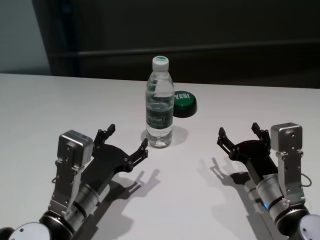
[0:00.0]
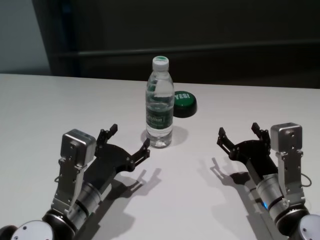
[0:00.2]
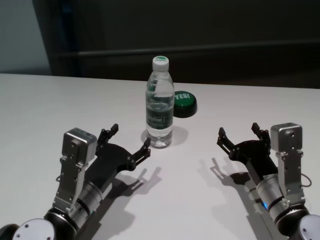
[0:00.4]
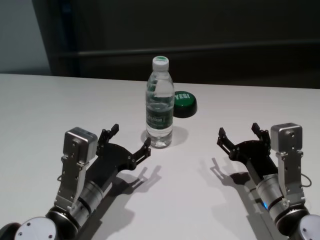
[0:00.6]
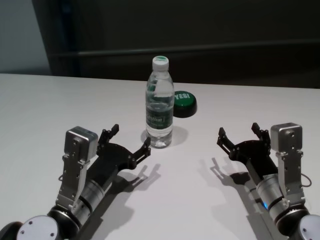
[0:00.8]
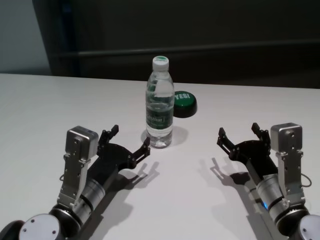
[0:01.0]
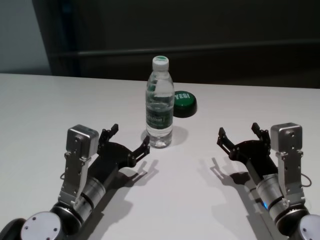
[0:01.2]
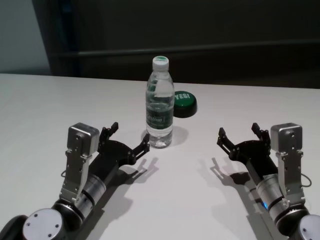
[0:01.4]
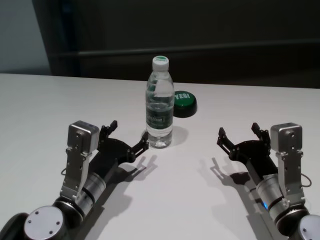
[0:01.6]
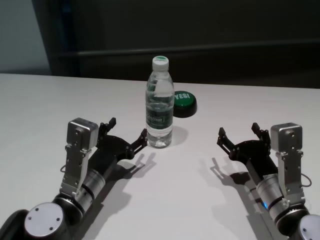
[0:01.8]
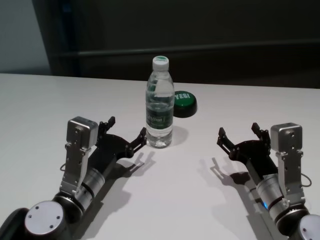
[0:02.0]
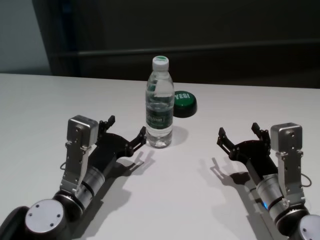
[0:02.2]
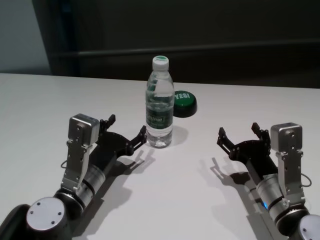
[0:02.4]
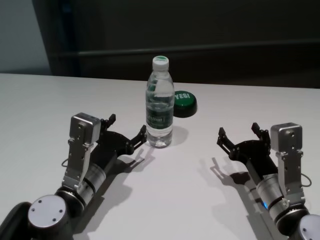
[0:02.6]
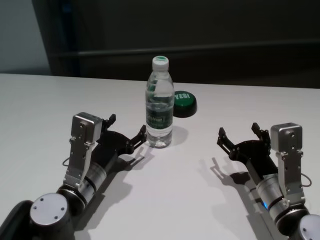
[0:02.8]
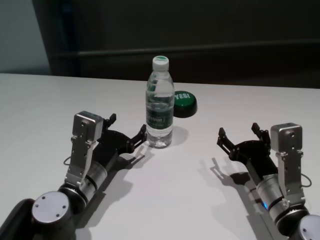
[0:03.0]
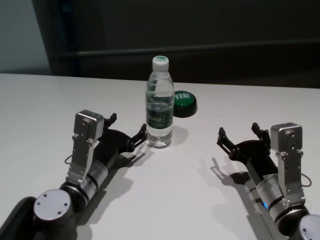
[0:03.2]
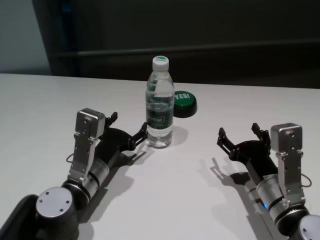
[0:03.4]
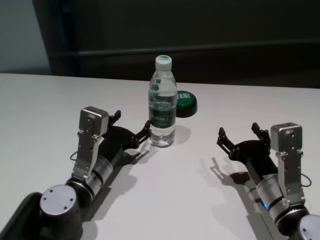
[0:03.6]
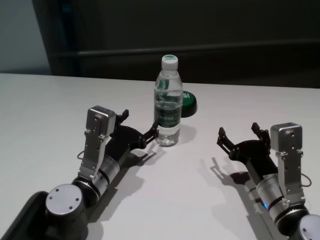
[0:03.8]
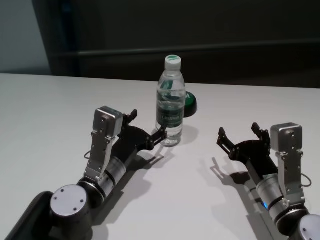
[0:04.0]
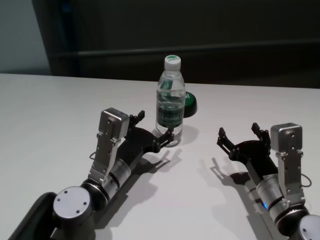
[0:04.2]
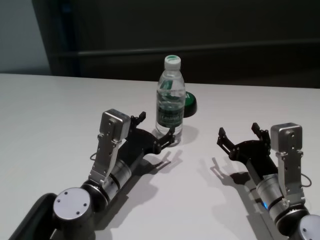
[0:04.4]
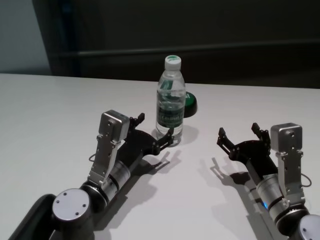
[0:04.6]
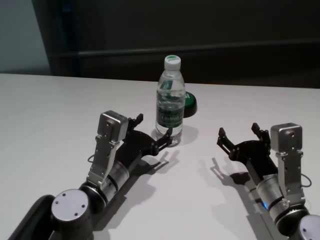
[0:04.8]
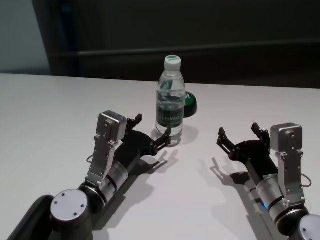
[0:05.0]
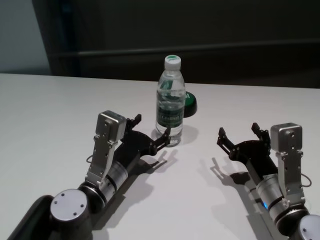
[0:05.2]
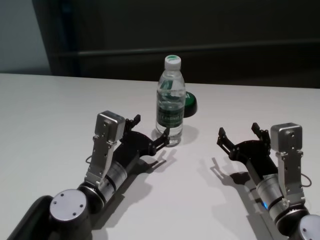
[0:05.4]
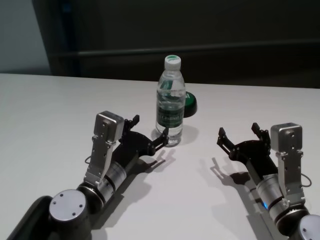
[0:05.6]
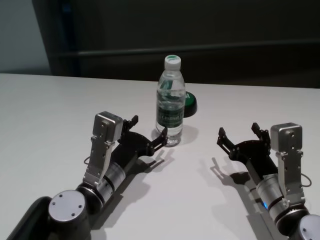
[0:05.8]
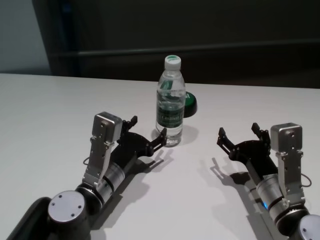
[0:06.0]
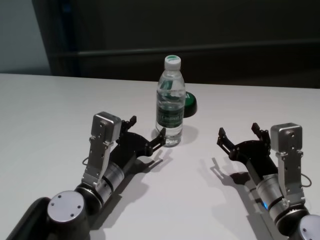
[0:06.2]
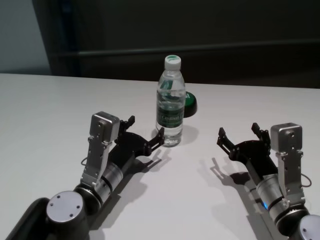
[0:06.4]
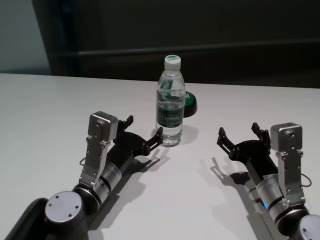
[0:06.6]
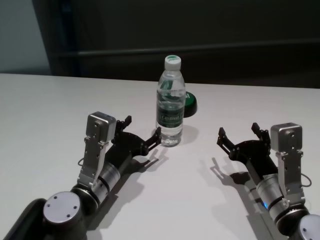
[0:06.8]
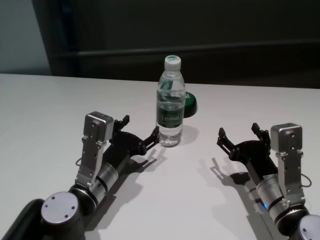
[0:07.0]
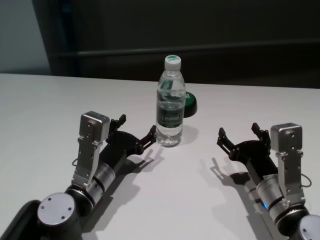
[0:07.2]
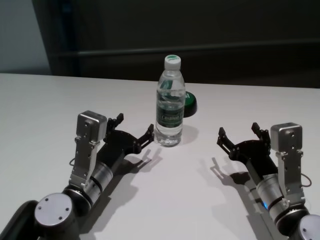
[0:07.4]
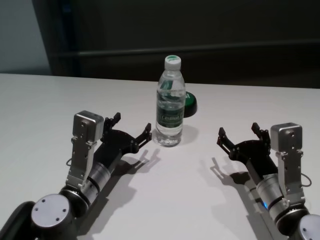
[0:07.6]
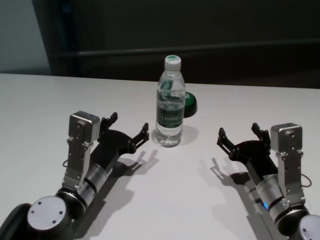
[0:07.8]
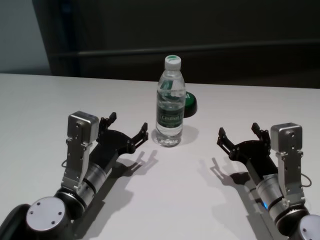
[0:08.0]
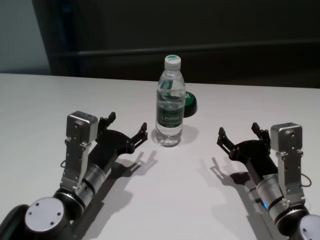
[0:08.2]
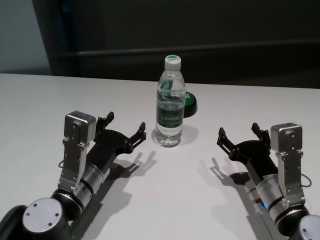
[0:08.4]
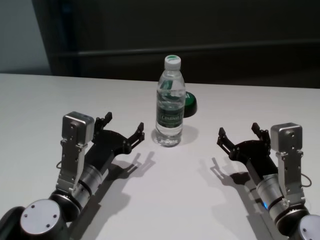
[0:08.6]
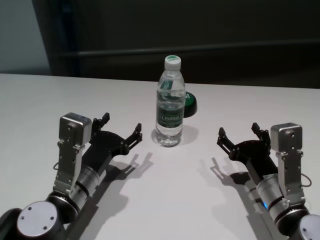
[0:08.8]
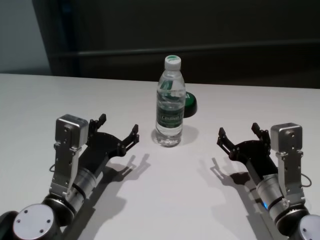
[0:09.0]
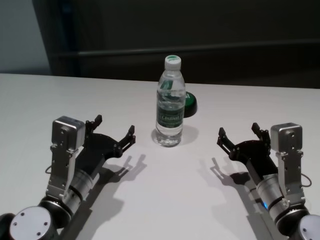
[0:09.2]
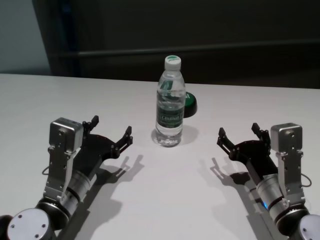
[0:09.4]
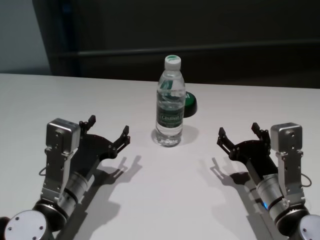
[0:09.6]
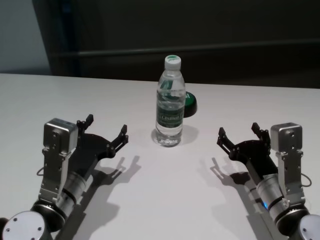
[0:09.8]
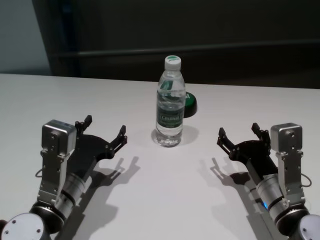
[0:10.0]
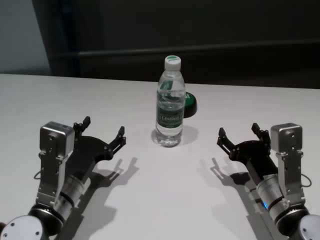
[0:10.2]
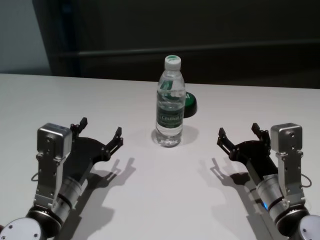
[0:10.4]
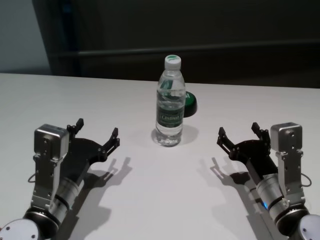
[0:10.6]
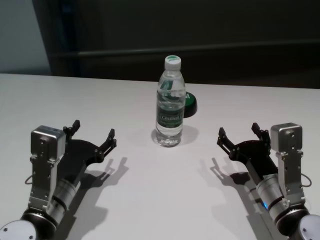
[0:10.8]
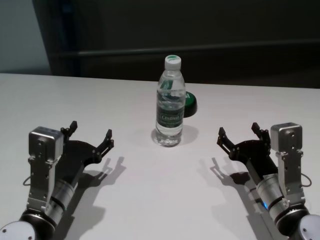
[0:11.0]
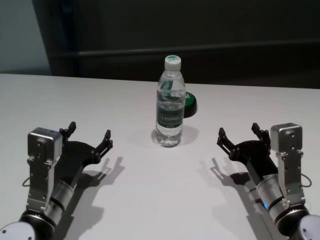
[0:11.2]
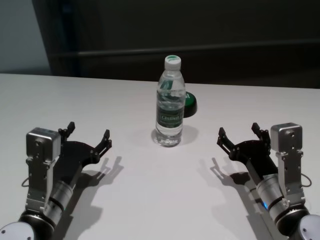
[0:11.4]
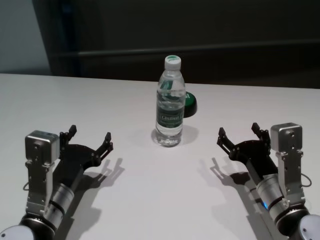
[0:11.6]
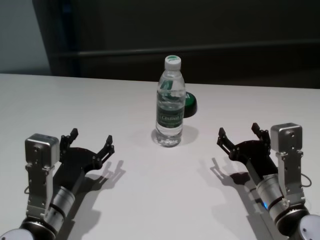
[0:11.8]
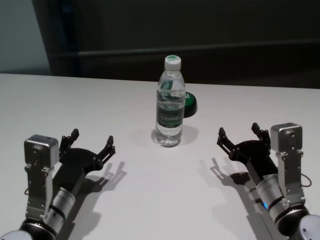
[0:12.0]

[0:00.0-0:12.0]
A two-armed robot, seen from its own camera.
Task of the whole recording: return to a safe position after touching an obstacle with your arm on the white table.
Step, 0:00.0 to 0:07.6: Touch the bottle with left gripper.

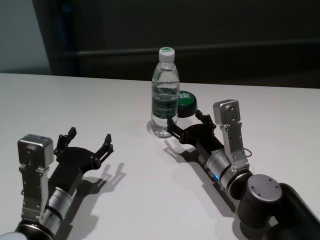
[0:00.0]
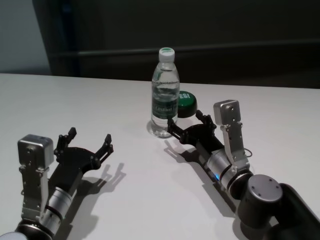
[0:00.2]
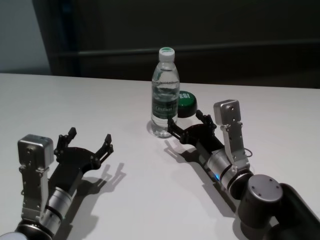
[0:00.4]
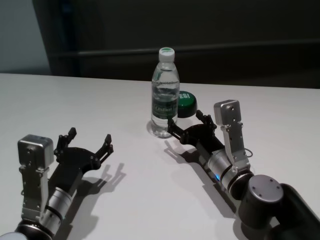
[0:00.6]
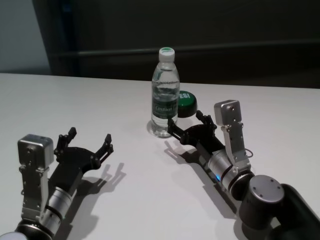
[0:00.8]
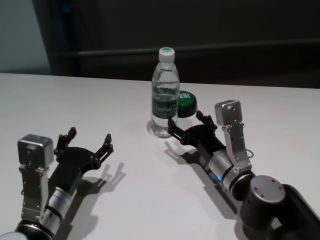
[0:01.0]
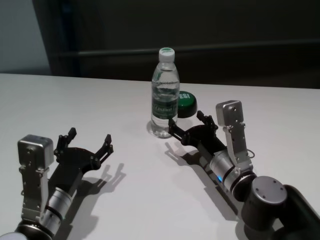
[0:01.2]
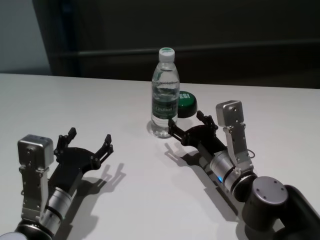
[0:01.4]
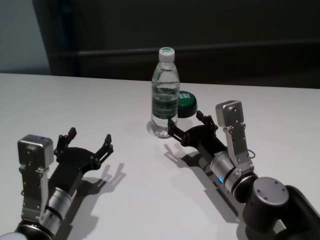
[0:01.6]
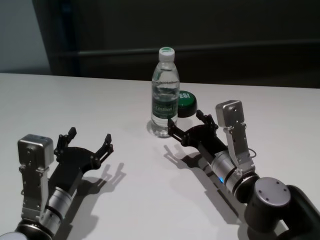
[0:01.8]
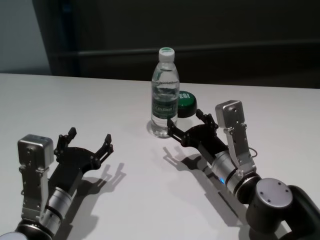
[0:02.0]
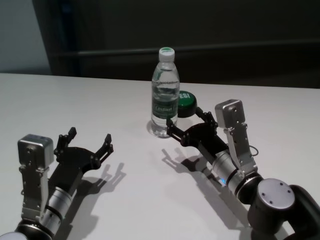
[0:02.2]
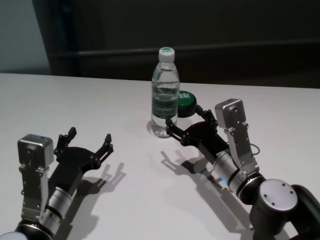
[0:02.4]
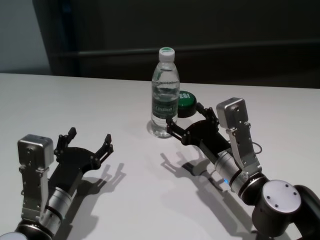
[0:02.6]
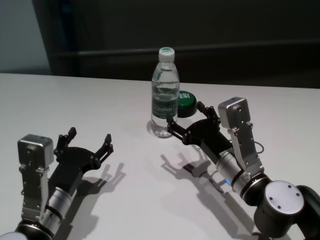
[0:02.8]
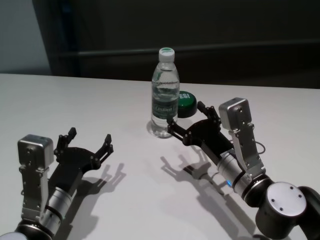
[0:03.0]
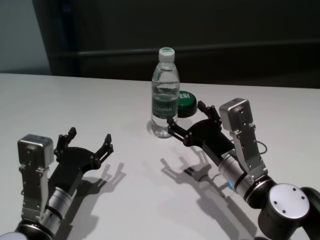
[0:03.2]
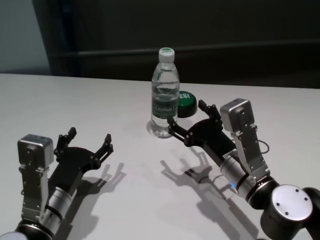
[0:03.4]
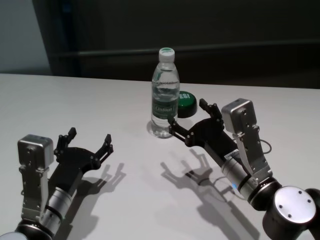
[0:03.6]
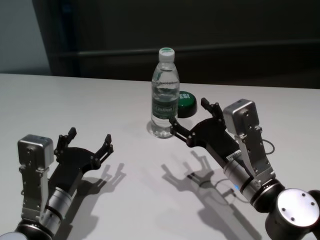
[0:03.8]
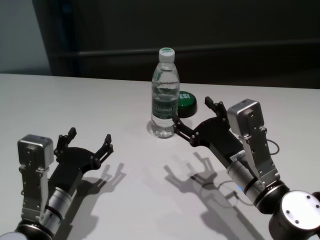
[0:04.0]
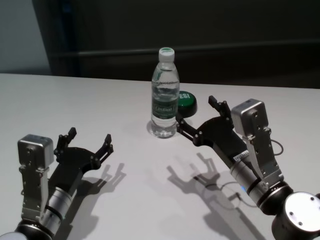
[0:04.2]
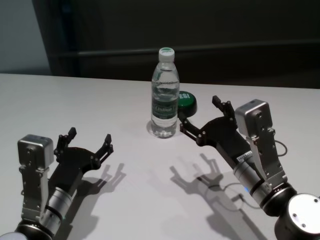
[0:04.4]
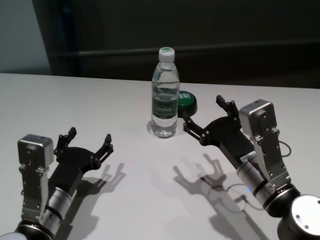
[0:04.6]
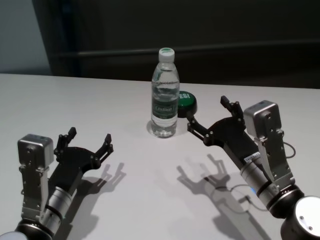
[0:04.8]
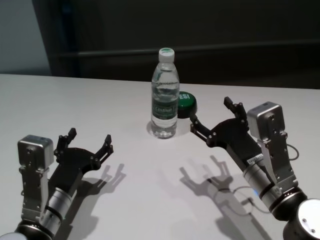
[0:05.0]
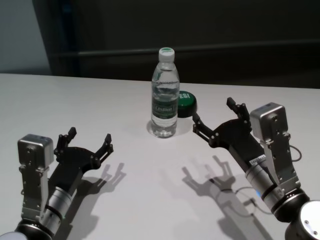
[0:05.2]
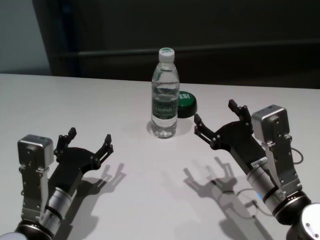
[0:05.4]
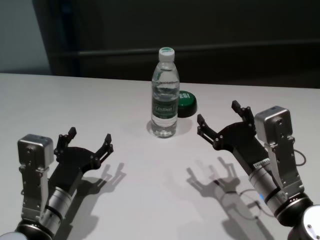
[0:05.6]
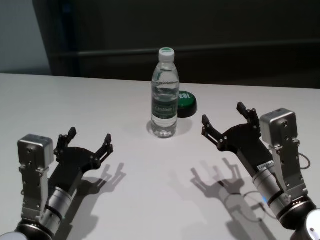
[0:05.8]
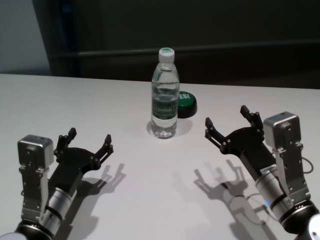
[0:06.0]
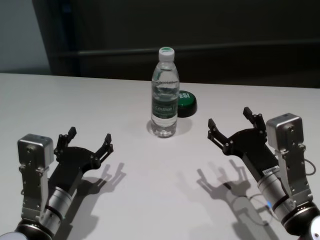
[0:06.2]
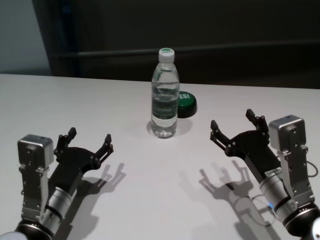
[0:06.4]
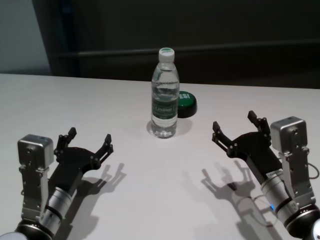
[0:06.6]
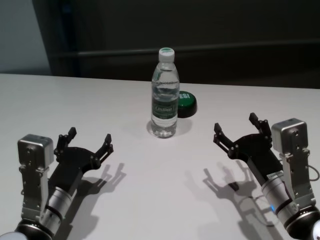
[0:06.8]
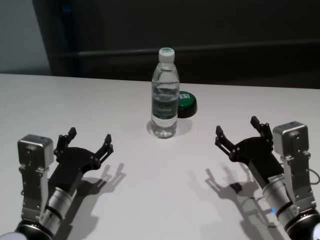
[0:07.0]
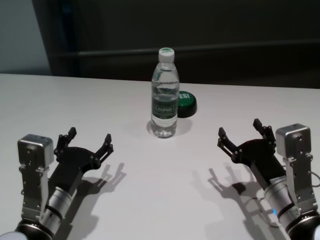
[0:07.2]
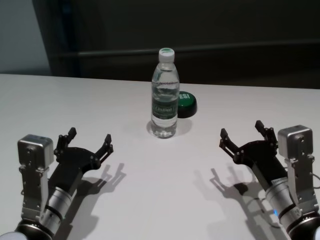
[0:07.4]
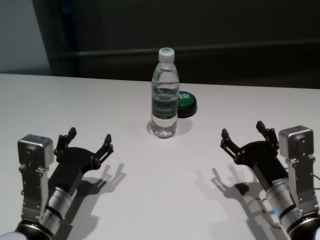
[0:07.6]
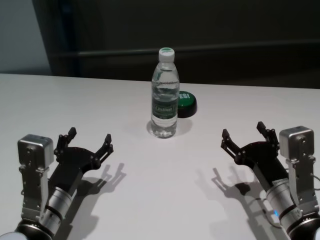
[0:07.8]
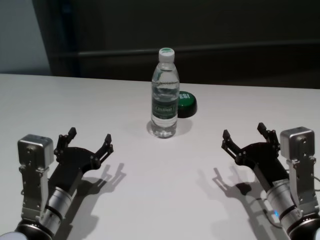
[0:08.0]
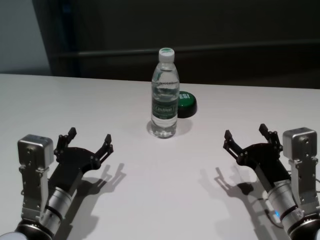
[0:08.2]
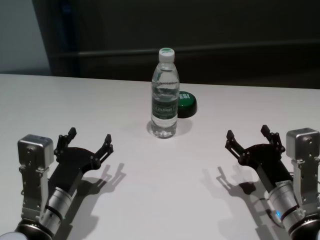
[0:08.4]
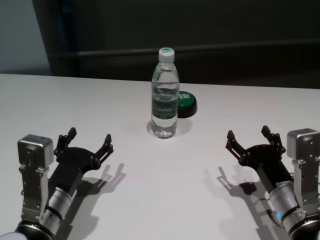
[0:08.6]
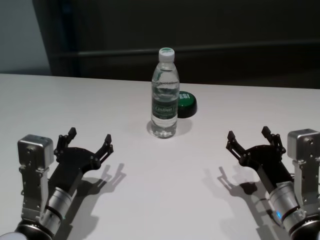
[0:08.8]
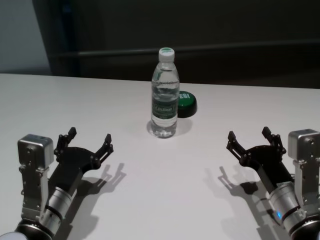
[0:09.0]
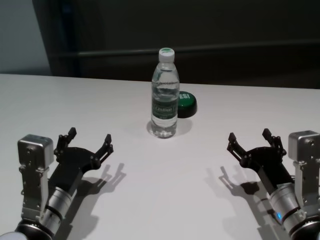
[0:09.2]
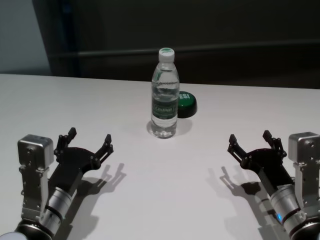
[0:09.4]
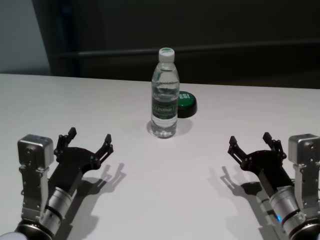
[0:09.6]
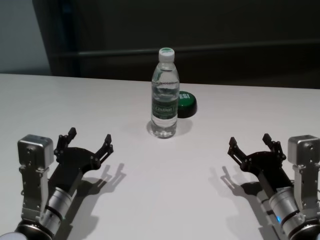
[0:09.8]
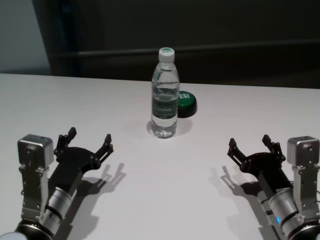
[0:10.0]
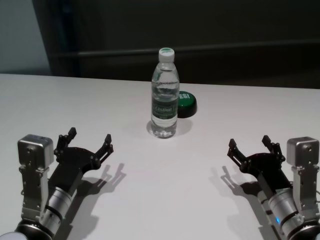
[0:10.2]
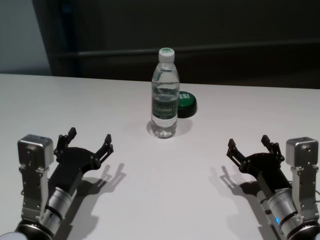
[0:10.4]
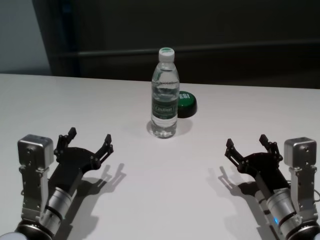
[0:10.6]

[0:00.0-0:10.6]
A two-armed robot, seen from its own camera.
Task of the whole recording: return to a safe position after touching an obstacle with your arm on the white table.
Step, 0:00.0 to 0:02.8: Touch the bottle with right gripper.
